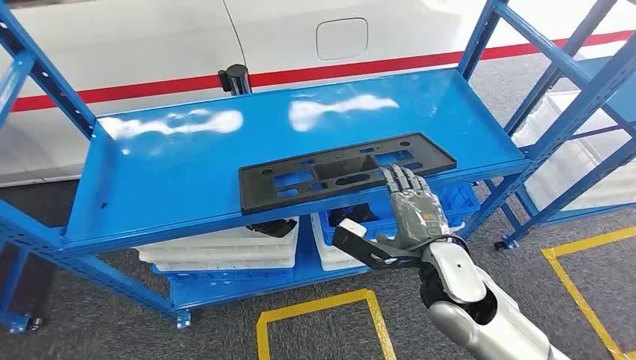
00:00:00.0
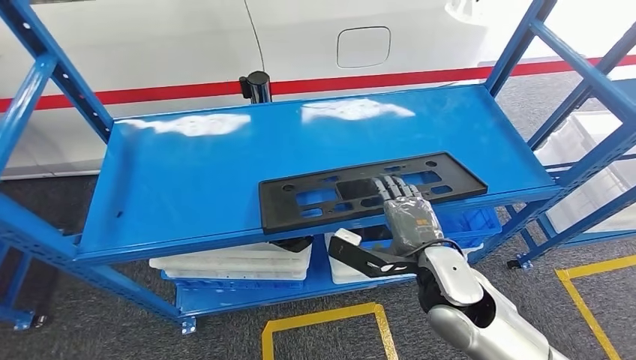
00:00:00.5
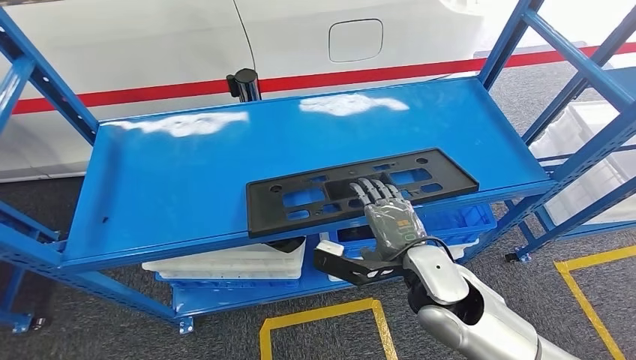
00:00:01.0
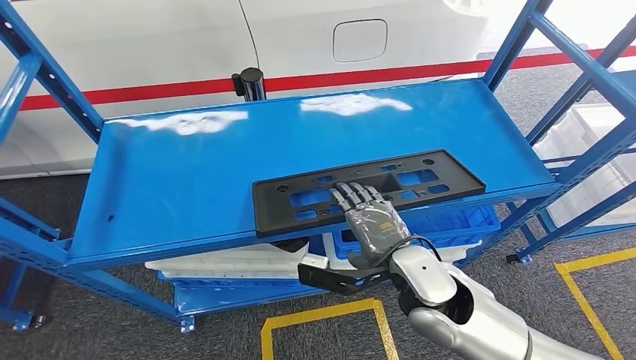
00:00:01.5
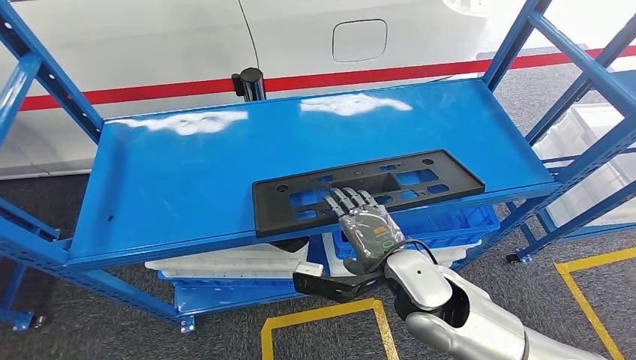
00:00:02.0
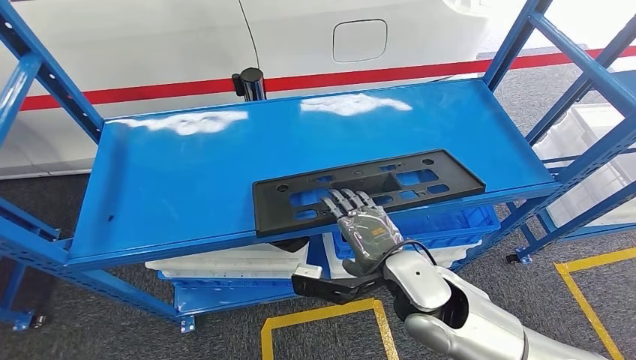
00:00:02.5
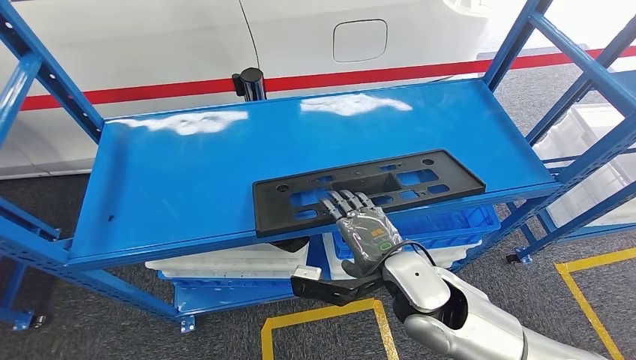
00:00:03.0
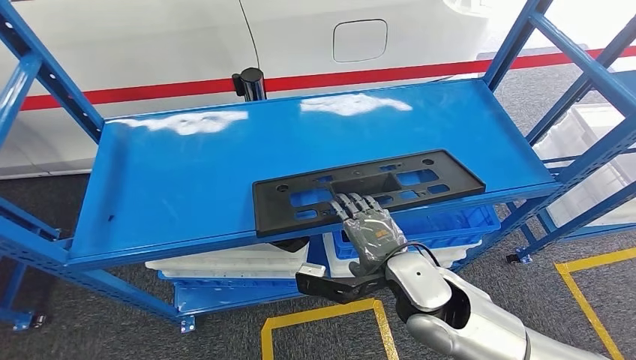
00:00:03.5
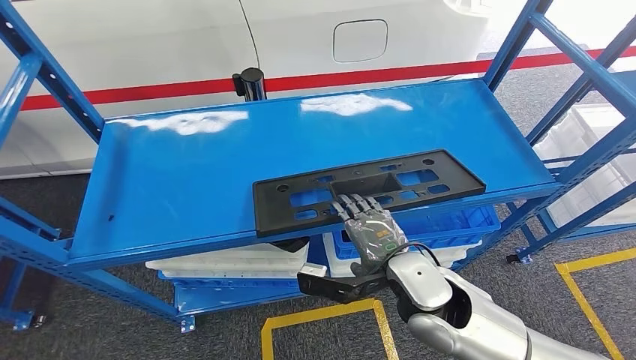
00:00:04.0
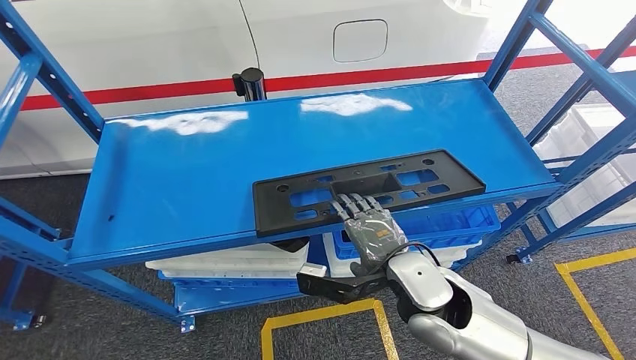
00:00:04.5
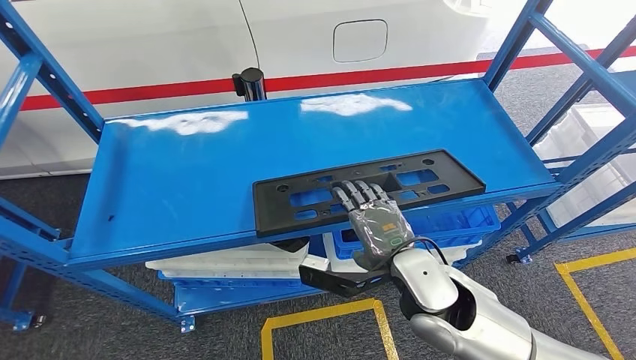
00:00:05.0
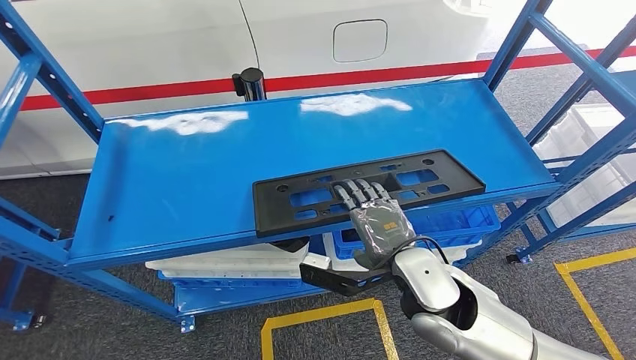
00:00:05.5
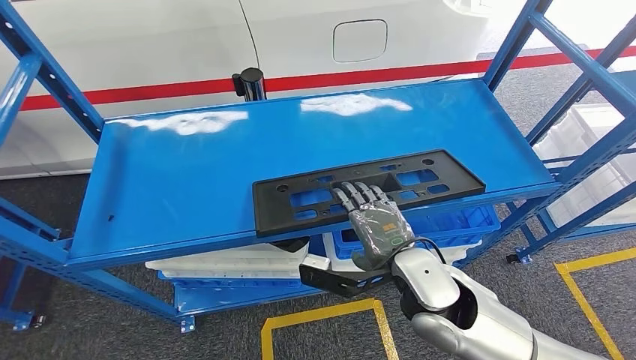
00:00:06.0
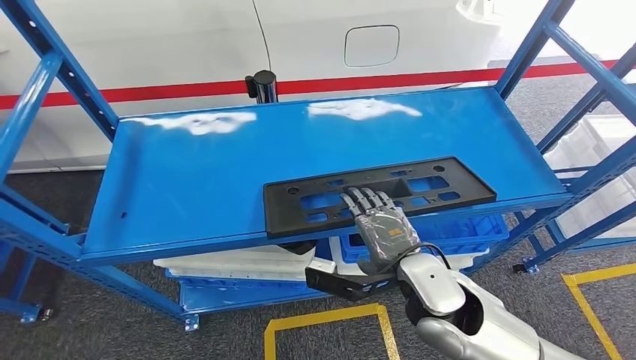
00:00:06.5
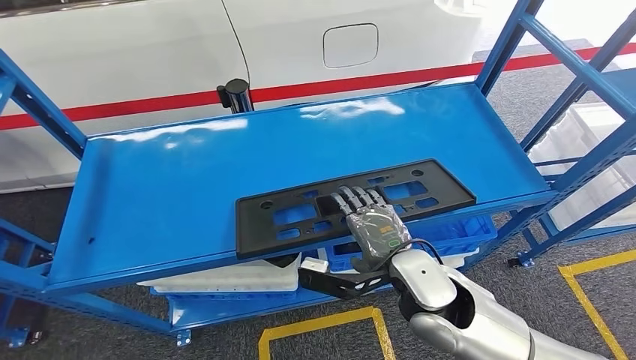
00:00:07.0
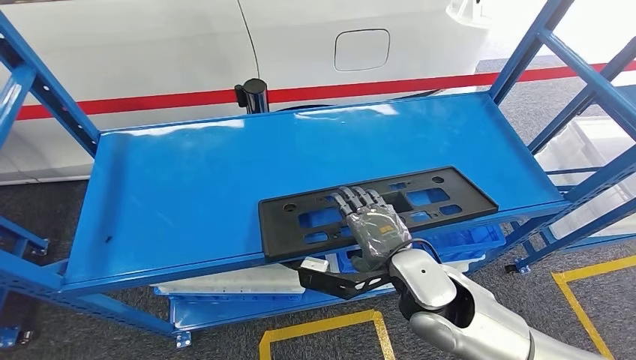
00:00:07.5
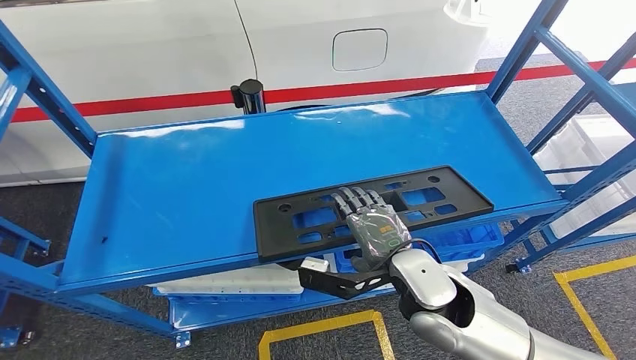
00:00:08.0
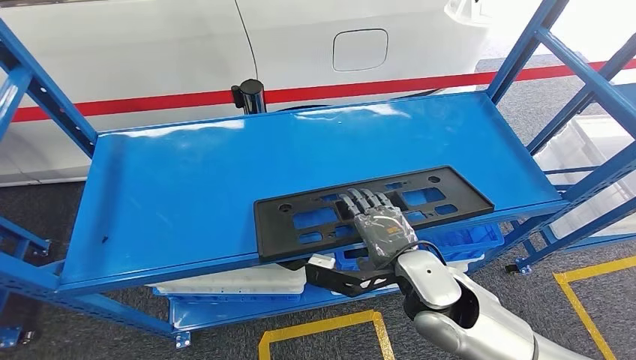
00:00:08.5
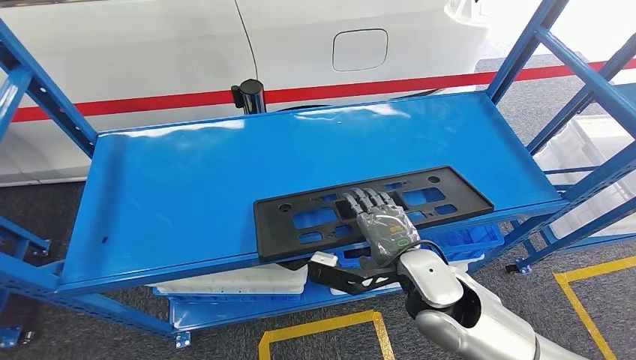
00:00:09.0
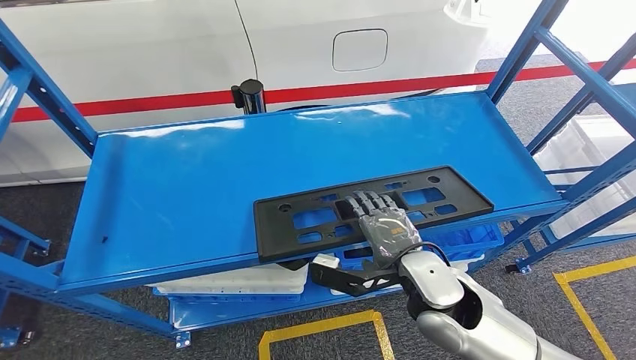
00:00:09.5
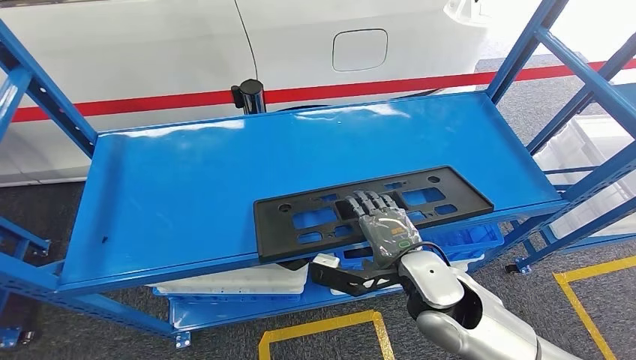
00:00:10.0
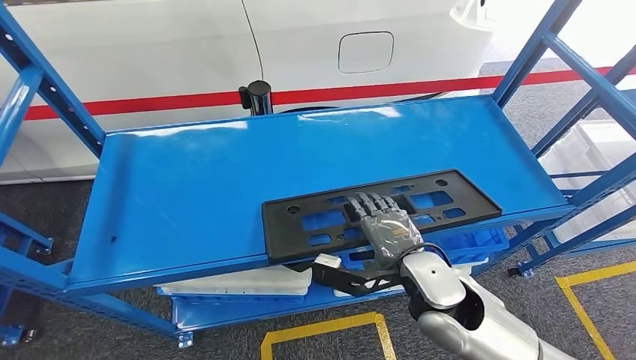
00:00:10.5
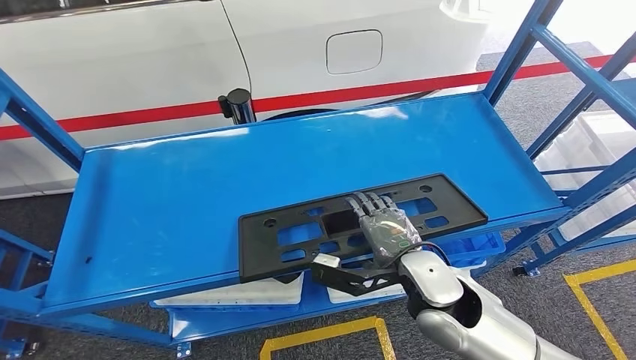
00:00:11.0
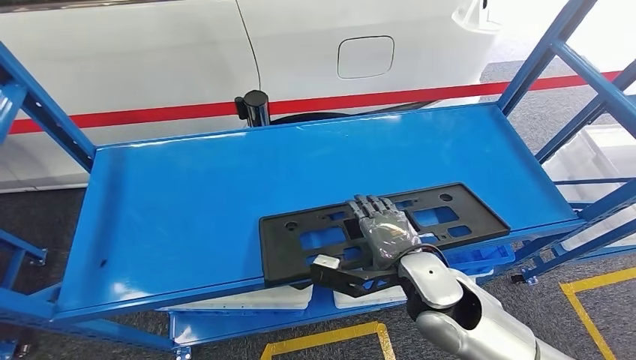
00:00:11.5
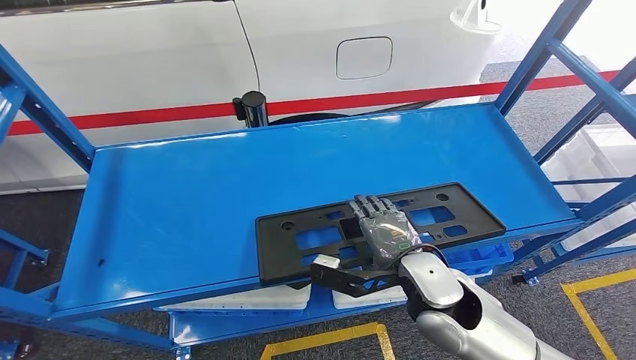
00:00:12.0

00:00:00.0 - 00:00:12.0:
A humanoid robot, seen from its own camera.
00:00:02.0 - 00:00:06.0: The hands move only a little.
00:00:08.0 - 00:00:10.0: The hands make only small movements.

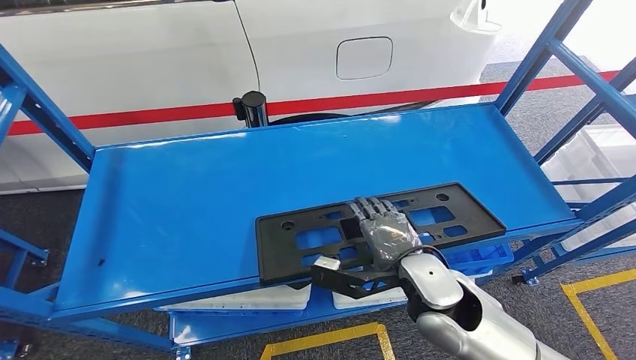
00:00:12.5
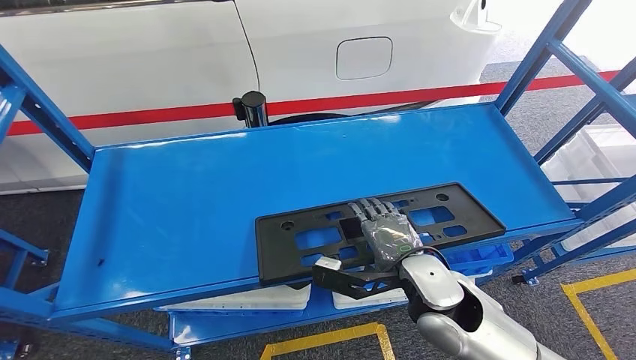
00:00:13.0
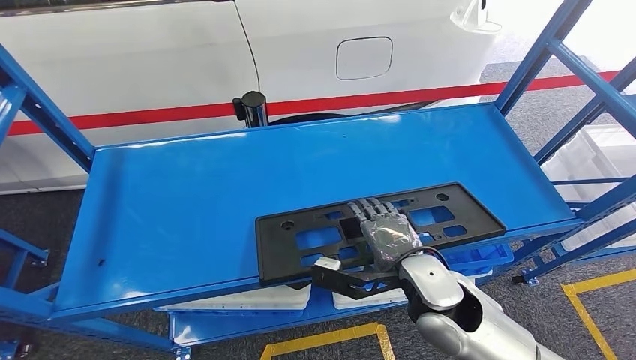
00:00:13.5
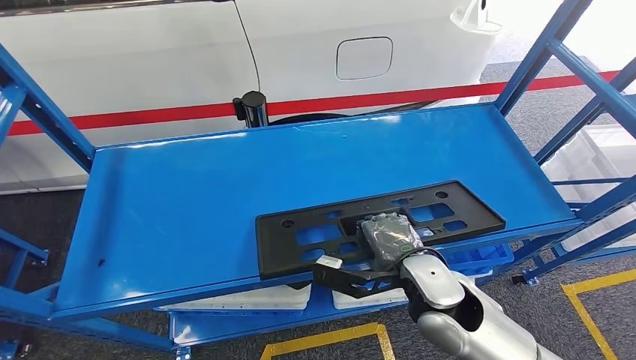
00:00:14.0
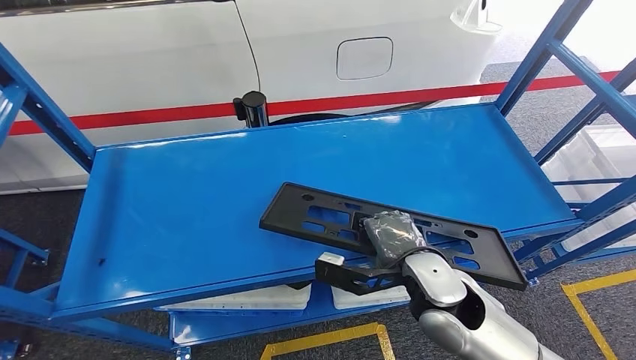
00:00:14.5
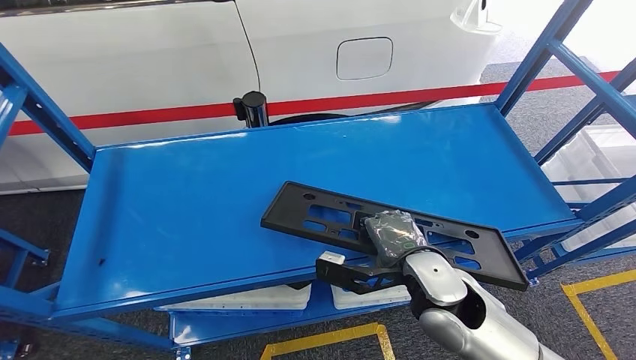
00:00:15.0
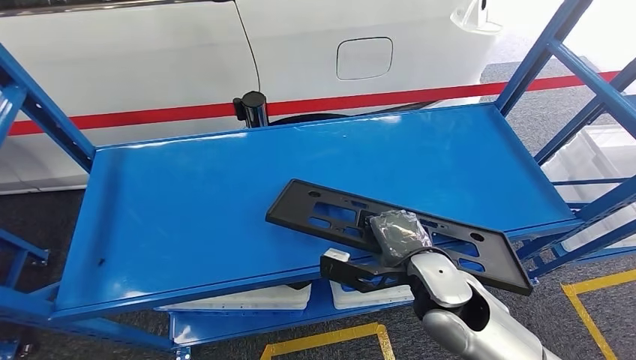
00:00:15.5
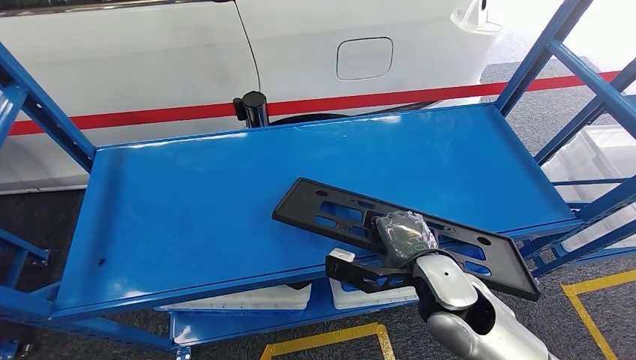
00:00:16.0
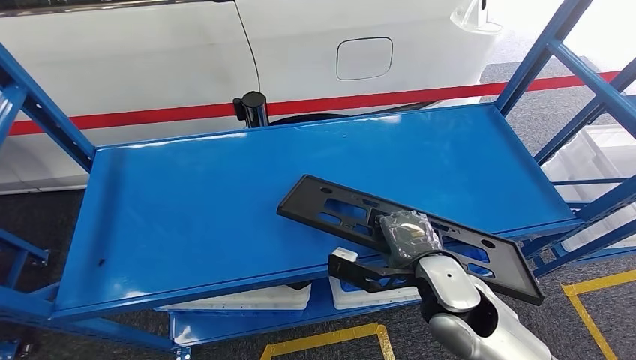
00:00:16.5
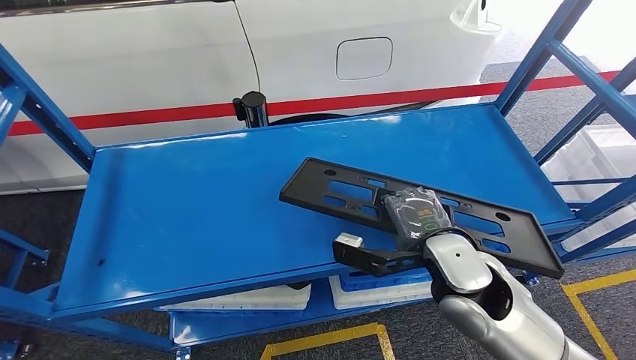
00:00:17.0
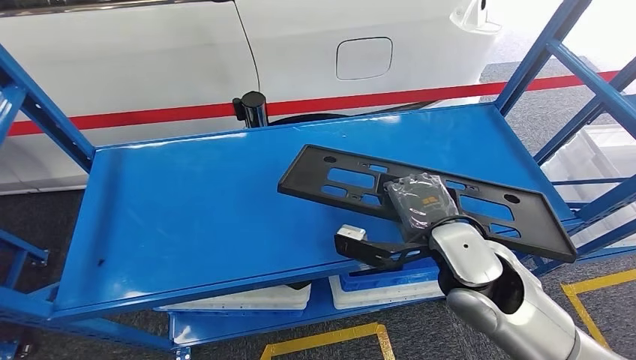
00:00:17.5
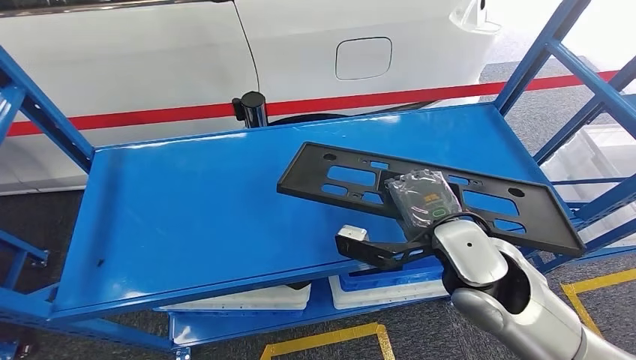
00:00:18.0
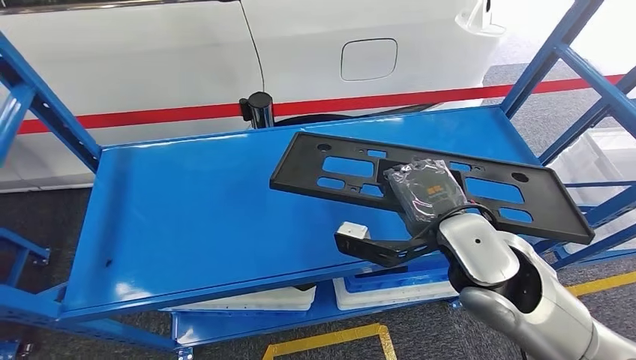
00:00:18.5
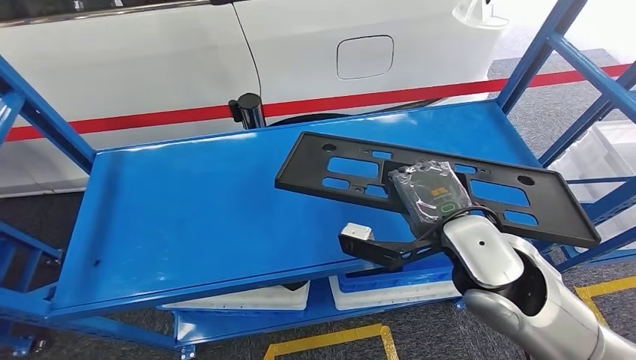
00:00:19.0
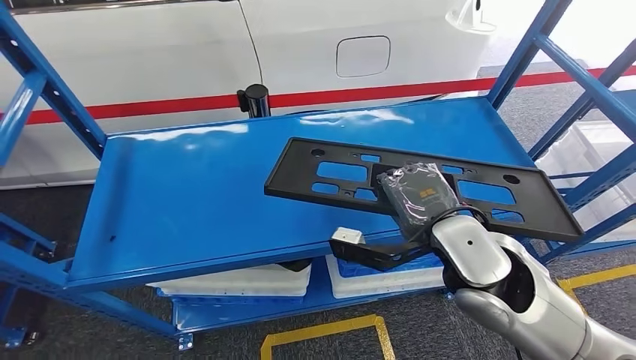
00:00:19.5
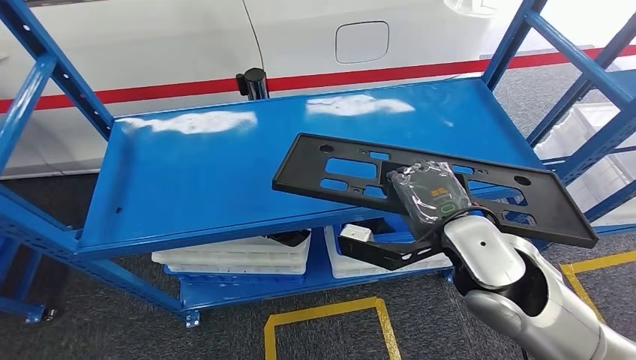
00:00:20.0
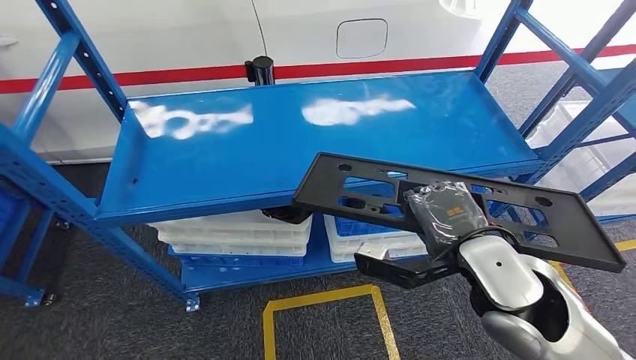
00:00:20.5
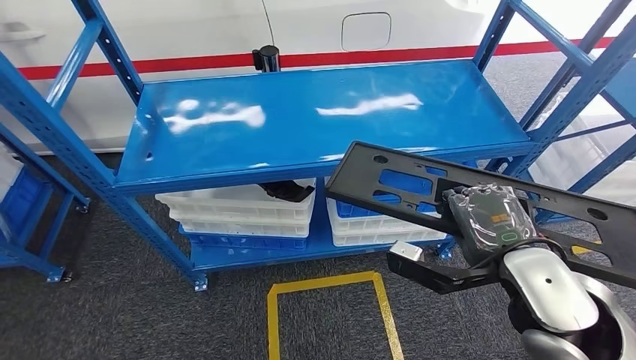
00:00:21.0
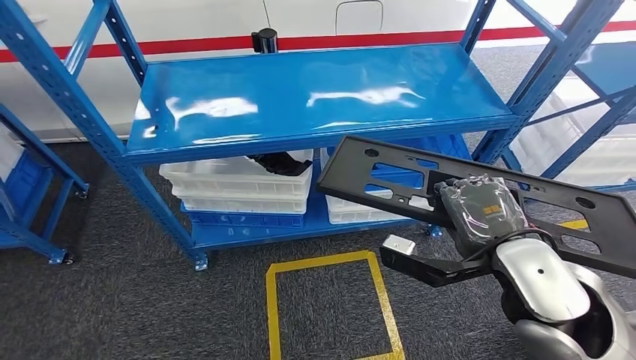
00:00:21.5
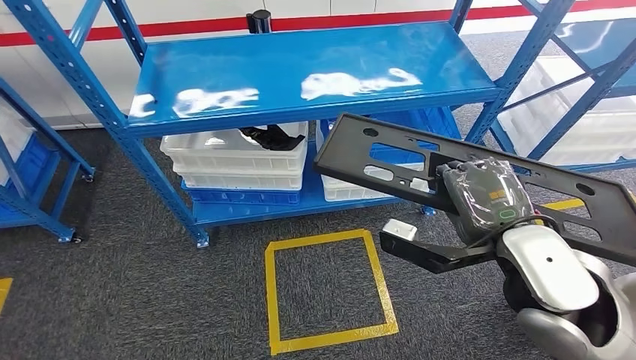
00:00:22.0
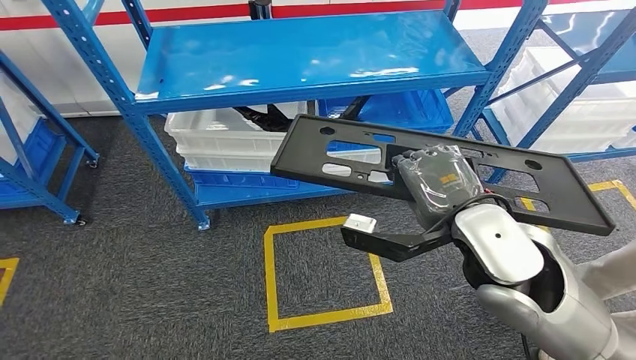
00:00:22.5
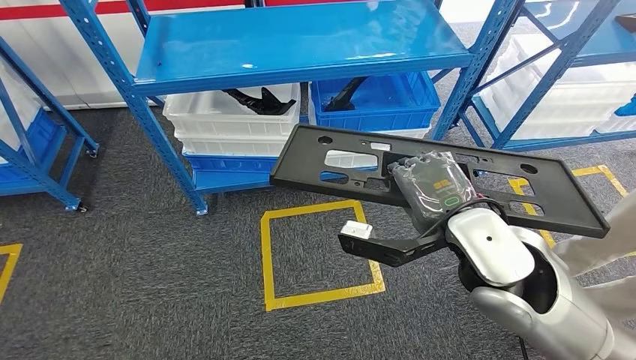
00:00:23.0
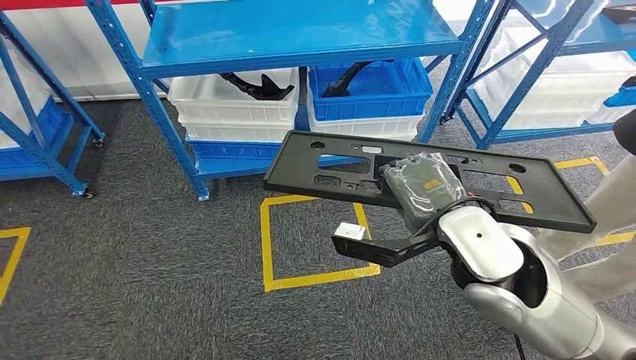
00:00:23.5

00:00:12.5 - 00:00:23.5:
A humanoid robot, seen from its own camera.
Step, 00:00:12.5 - 00:00:19.0: Pick up the large material from the shelf.
00:00:12.5 - 00:00:14.5: Neither hand changes place.
00:00:14.5 - 00:00:16.0: The hands stay close to where they were, moving slightly.
00:00:16.0 - 00:00:18.0: The right hand shifts about 10 cm upward.
